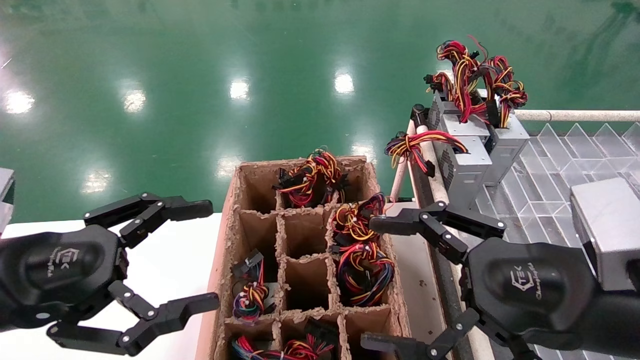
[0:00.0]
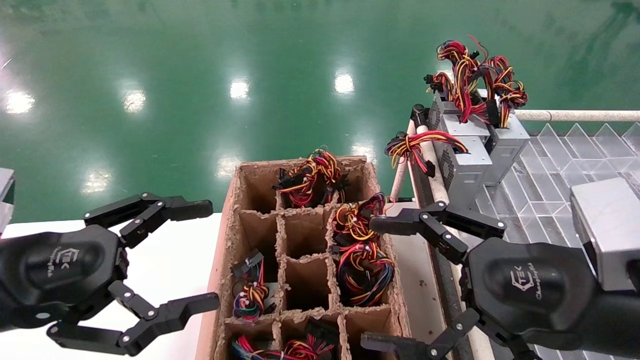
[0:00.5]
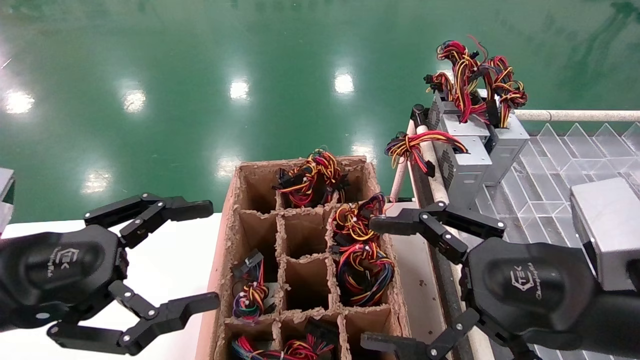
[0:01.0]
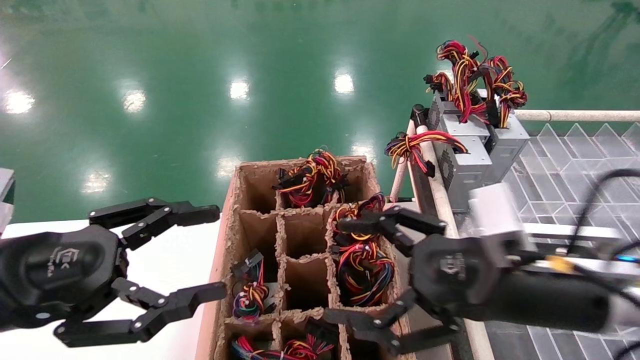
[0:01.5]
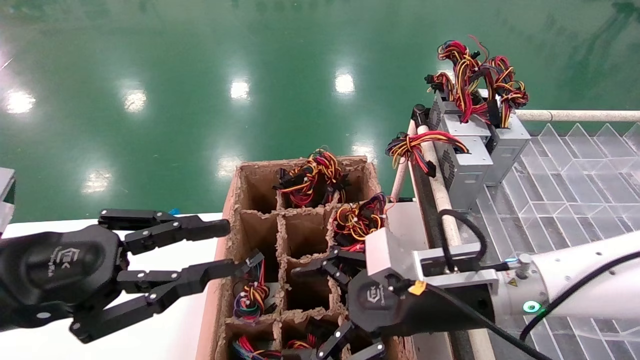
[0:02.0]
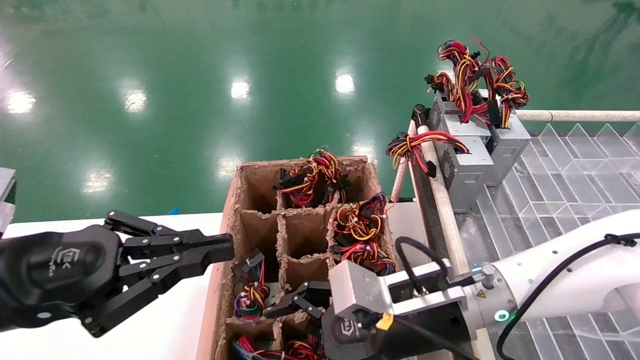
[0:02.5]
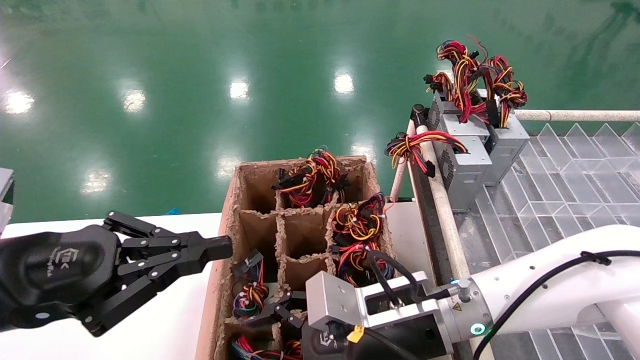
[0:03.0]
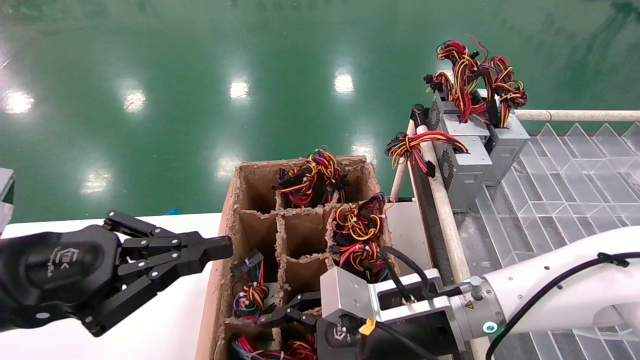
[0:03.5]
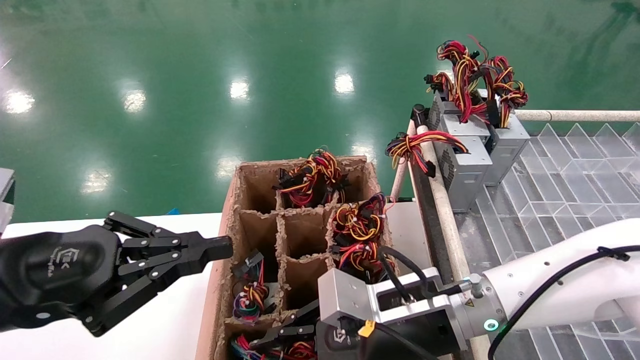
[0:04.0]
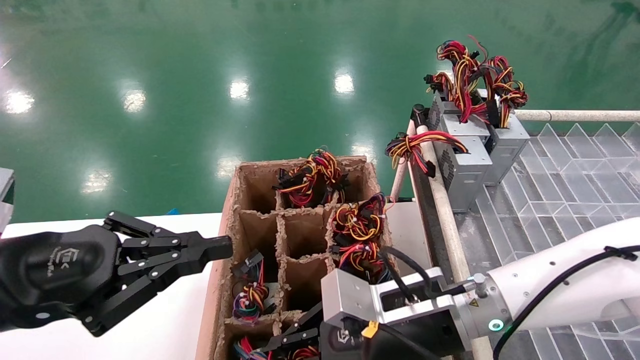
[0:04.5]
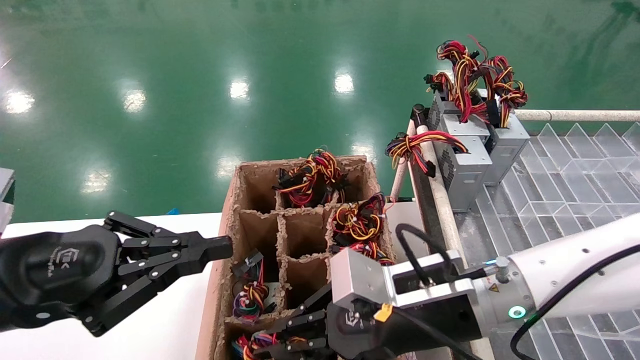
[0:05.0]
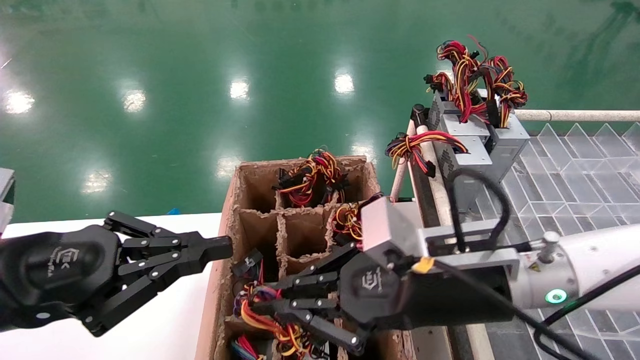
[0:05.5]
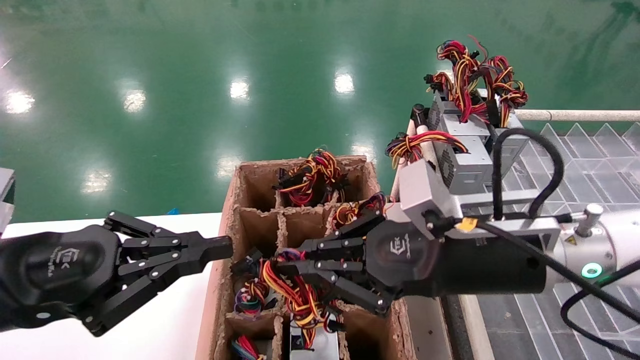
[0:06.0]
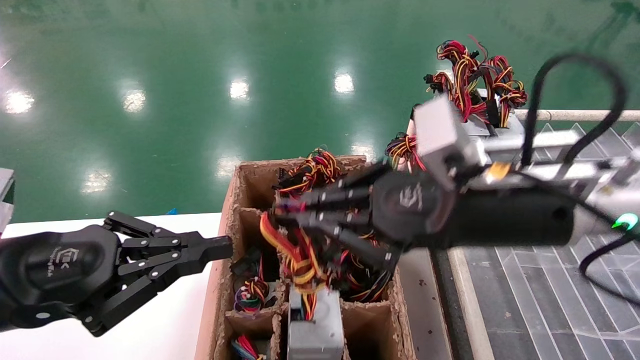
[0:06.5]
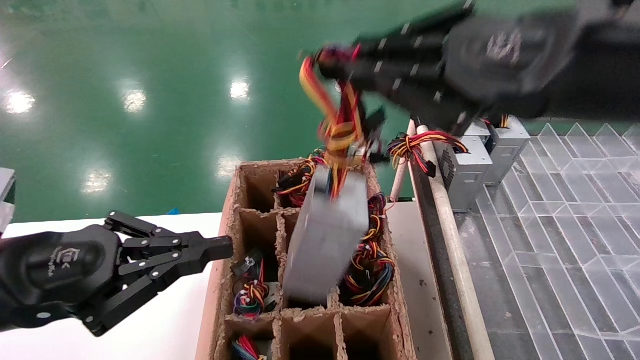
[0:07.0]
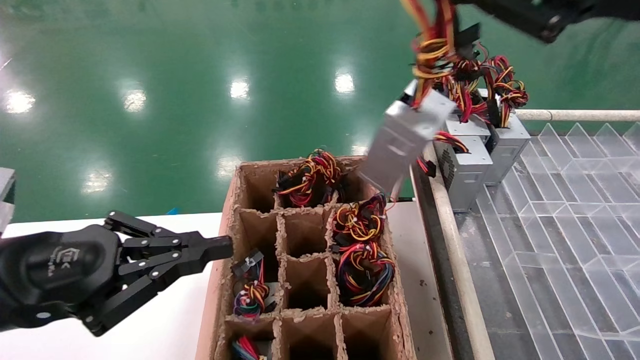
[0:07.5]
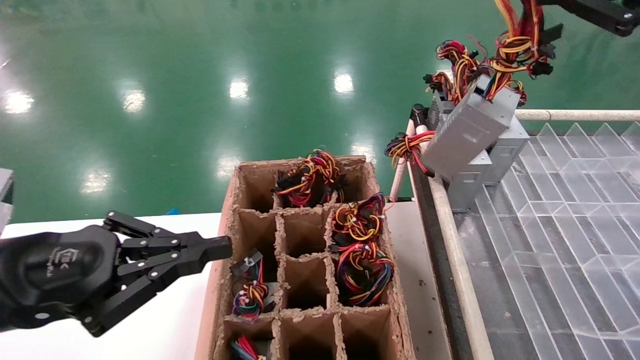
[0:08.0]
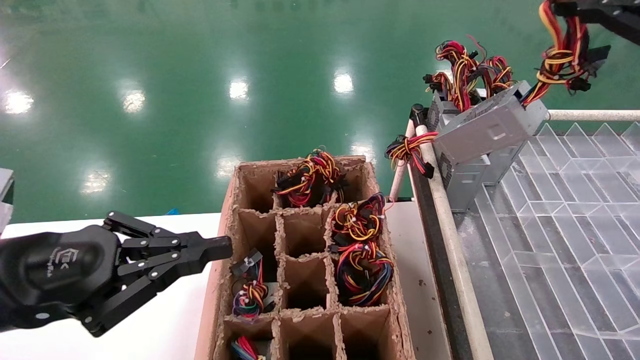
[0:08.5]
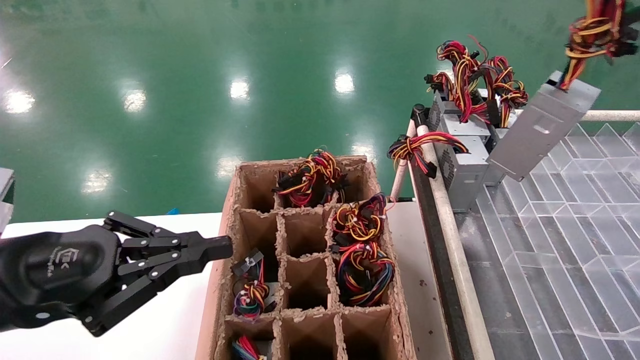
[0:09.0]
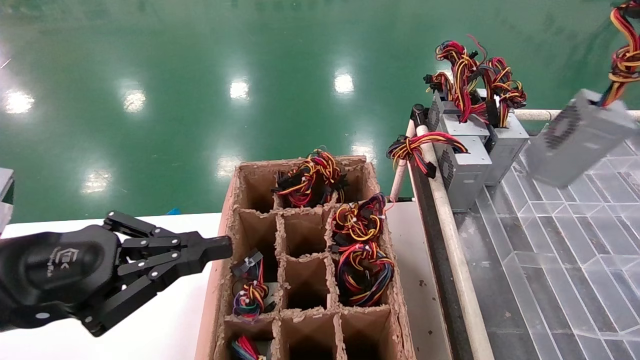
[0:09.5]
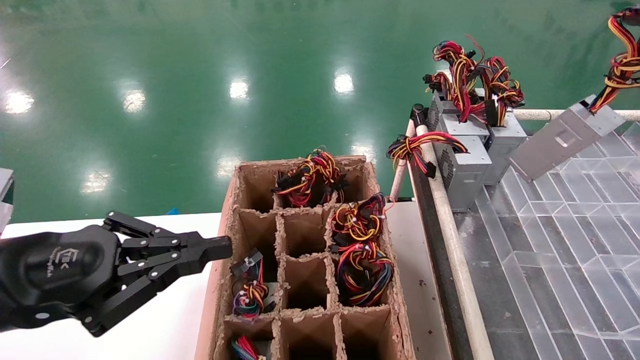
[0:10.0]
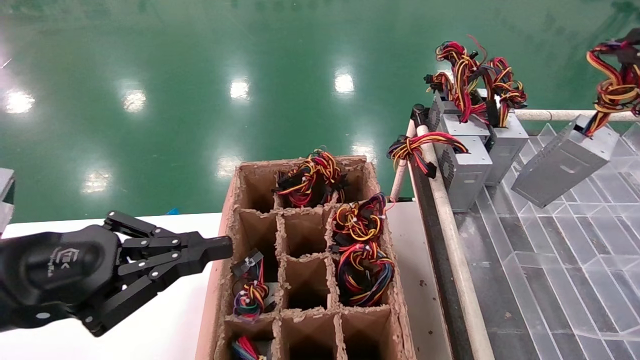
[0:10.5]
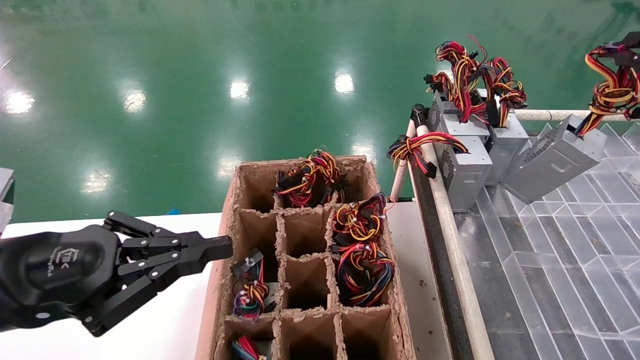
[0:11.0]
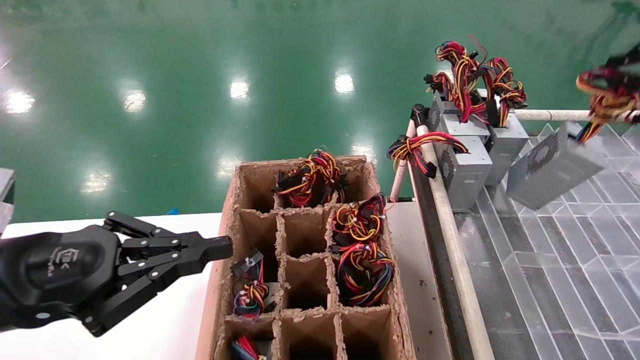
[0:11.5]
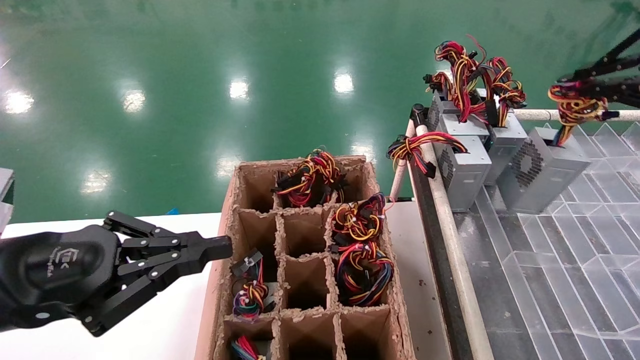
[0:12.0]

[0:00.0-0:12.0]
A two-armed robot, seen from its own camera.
Step, 0:01.5 to 0:04.5: Grab the main unit power supply from the containment box.
0:00.0 to 0:02.0: The right gripper shifts about 15 cm forward, to the left and downward, while the left gripper closes up.
0:02.0 to 0:04.0: The left gripper closes up. Meanwhile the right gripper closes its fingers.
0:04.0 to 0:06.0: The right gripper heads upward and to the right, covering some 10 cm, and closes.
0:06.0 to 0:08.0: The right gripper heads upward and to the right, covering roughly 30 cm.
0:08.0 to 0:10.0: The right gripper travels to the right by roughly 10 cm.

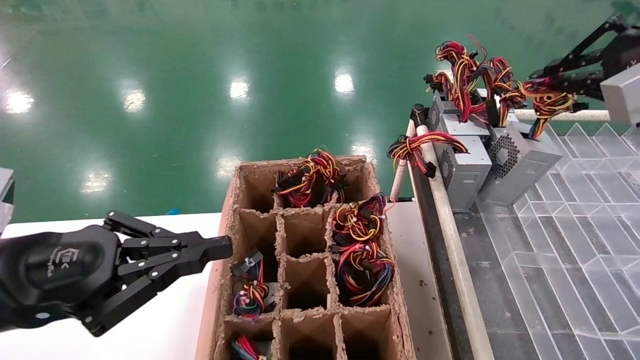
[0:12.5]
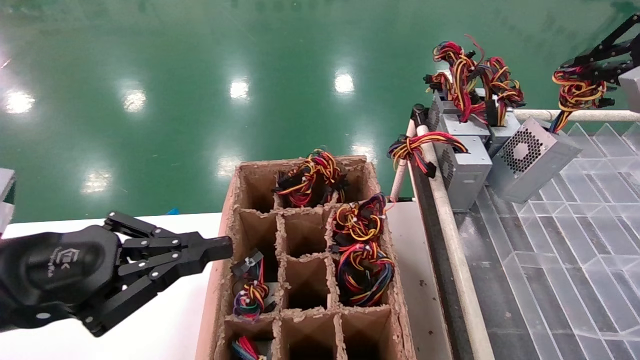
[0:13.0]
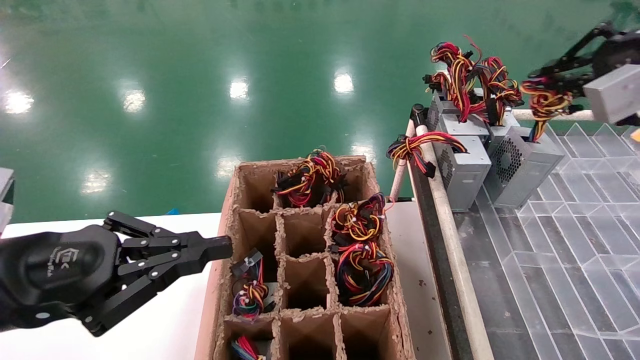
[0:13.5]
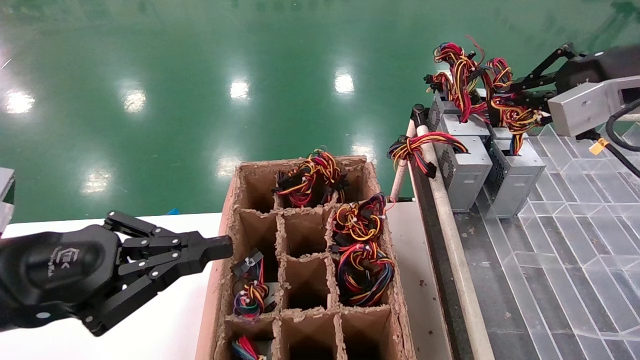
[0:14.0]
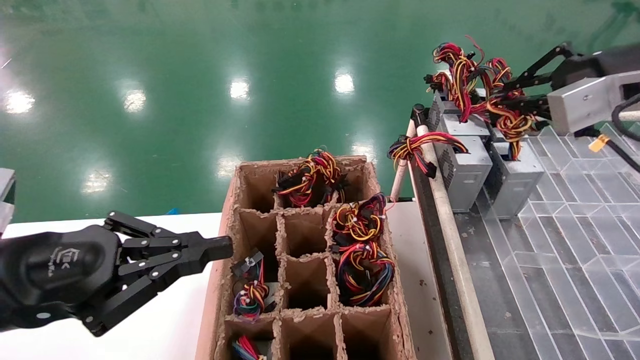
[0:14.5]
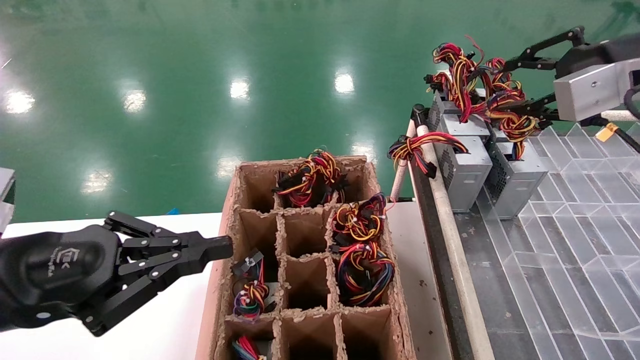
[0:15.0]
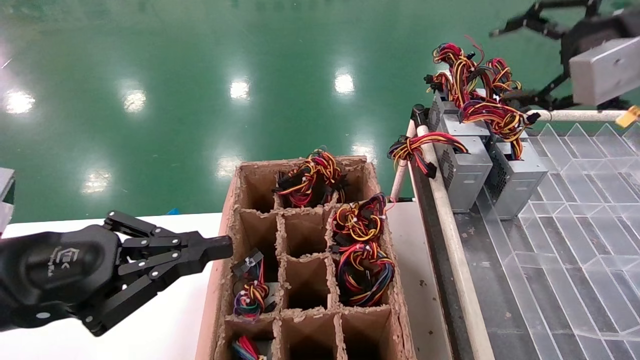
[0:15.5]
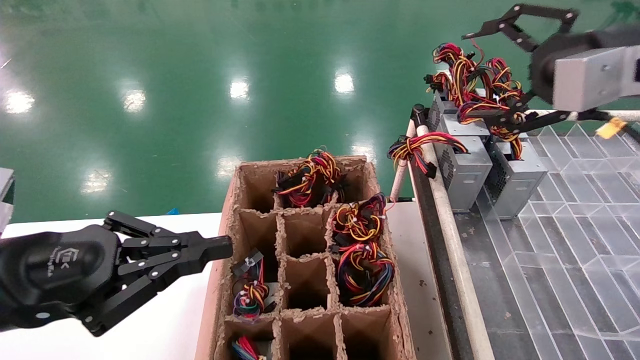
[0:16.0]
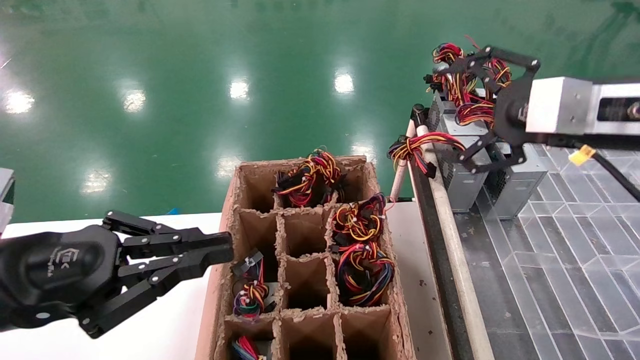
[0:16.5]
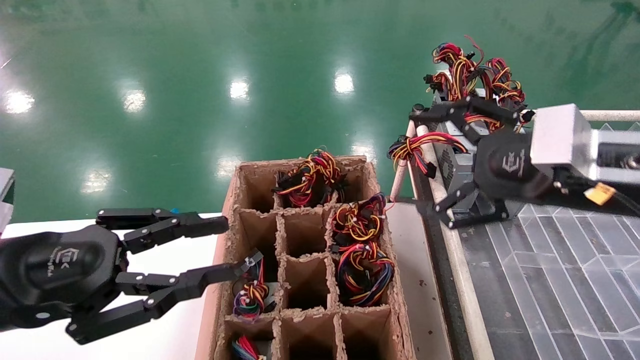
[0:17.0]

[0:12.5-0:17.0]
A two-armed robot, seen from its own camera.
Step, 0:12.5 to 0:15.0: Place the main unit power supply in the designated area.
0:12.5 to 0:14.5: The right gripper shifts by roughly 5 cm.
0:14.5 to 0:17.0: The right gripper shifts roughly 15 cm downward, to the left and backward, and opens.
